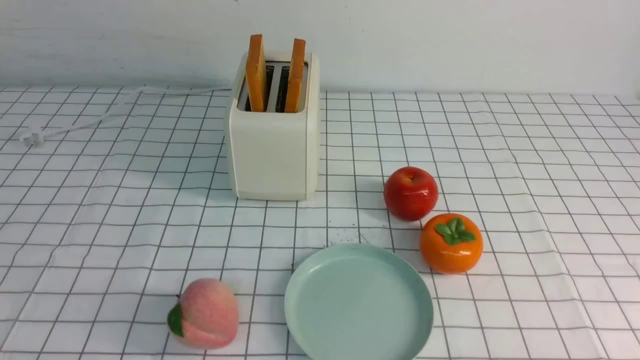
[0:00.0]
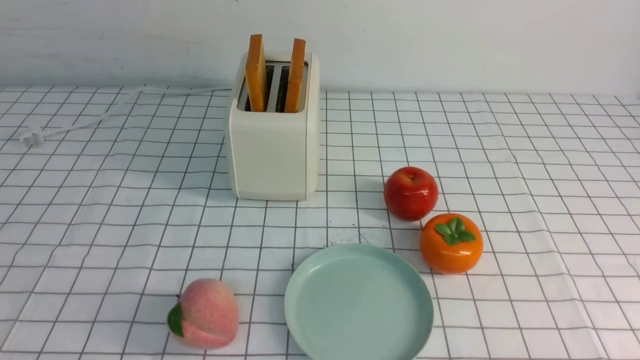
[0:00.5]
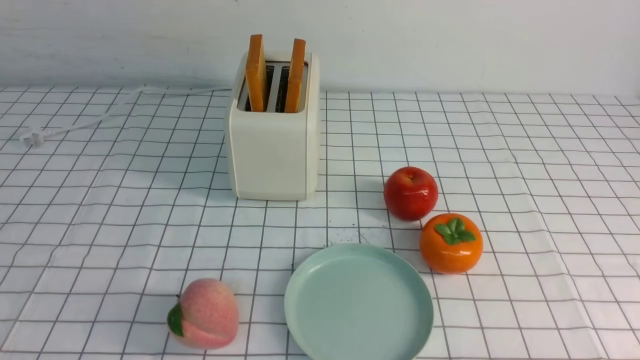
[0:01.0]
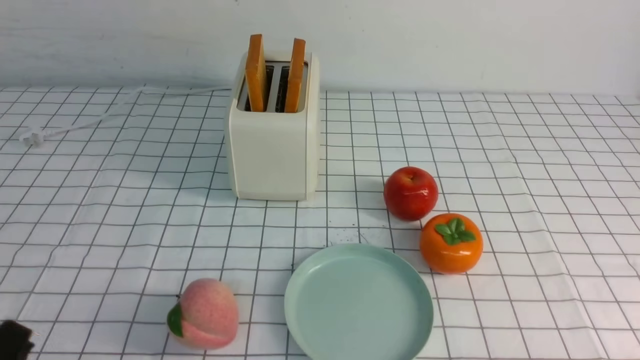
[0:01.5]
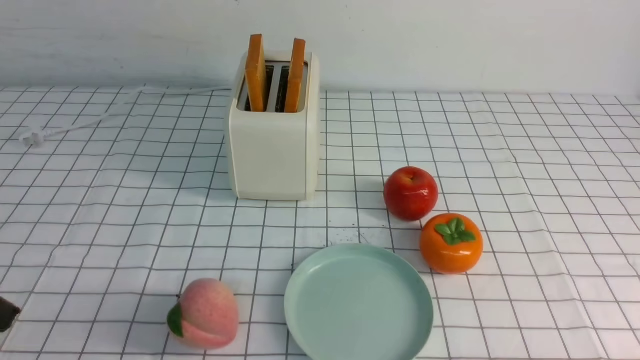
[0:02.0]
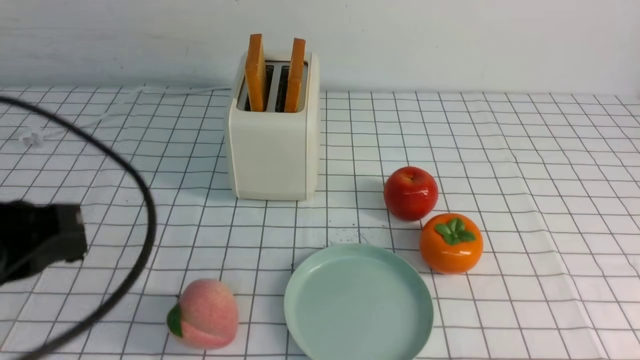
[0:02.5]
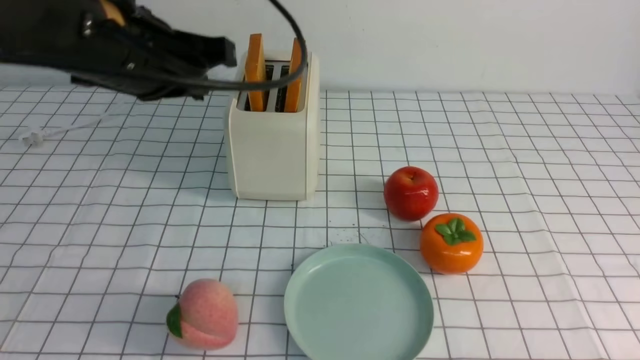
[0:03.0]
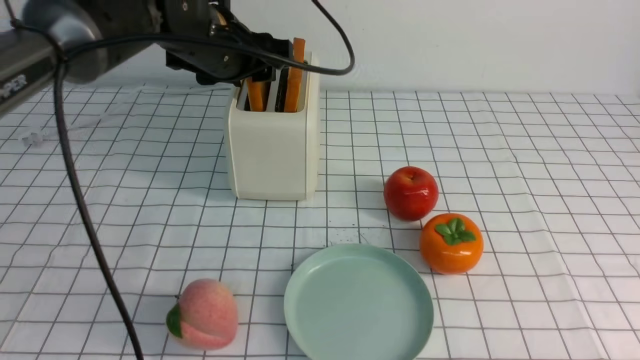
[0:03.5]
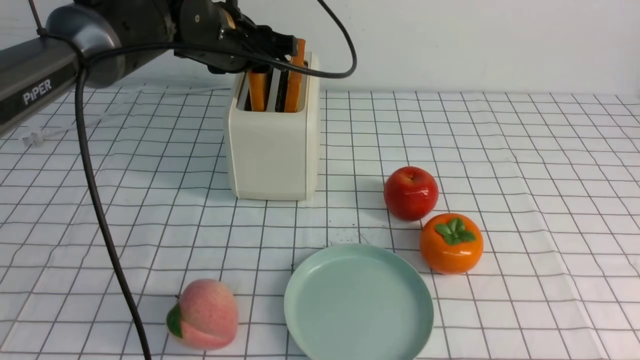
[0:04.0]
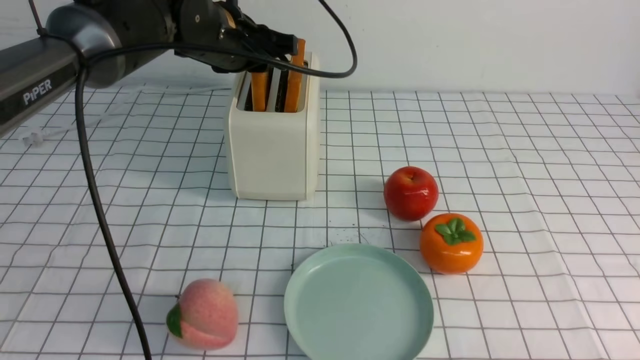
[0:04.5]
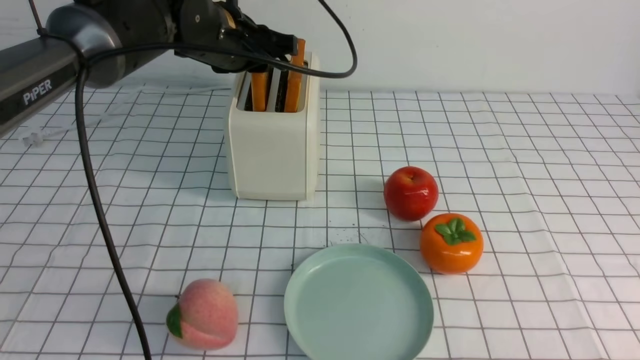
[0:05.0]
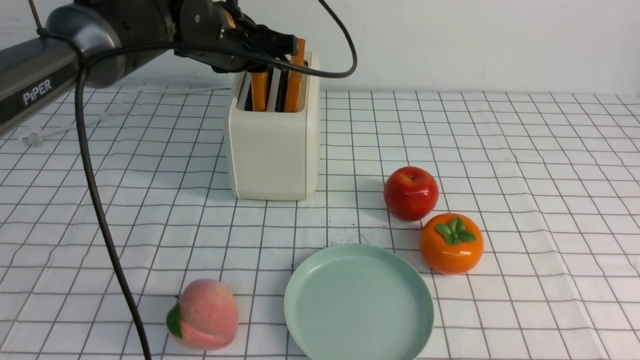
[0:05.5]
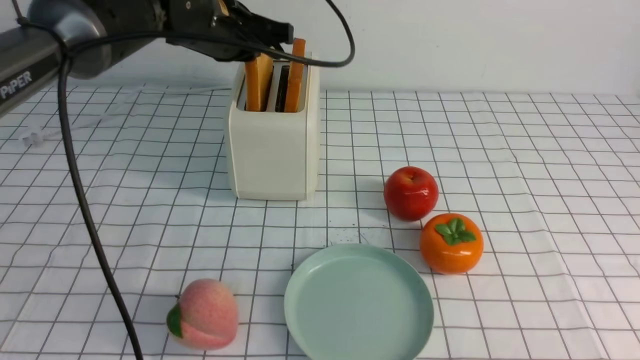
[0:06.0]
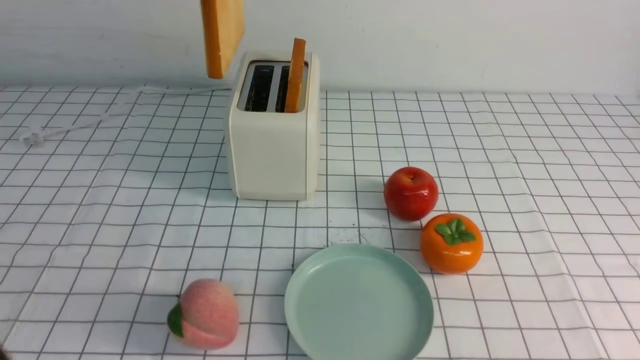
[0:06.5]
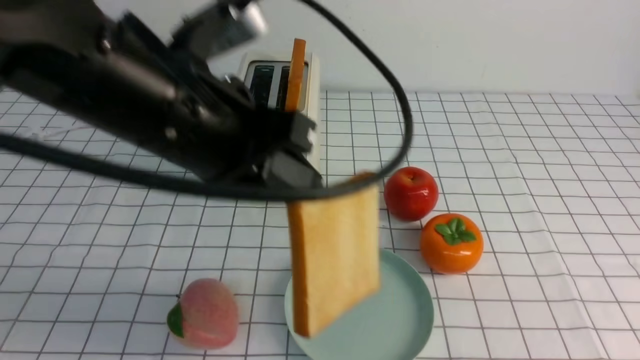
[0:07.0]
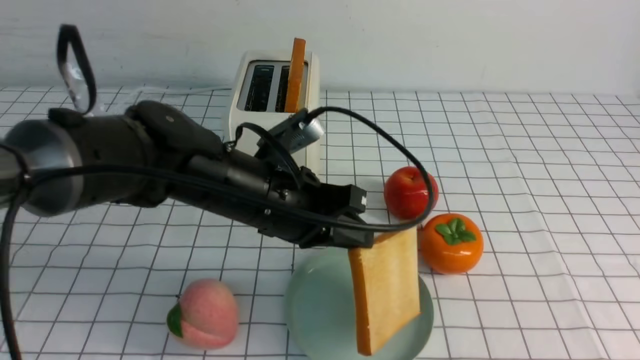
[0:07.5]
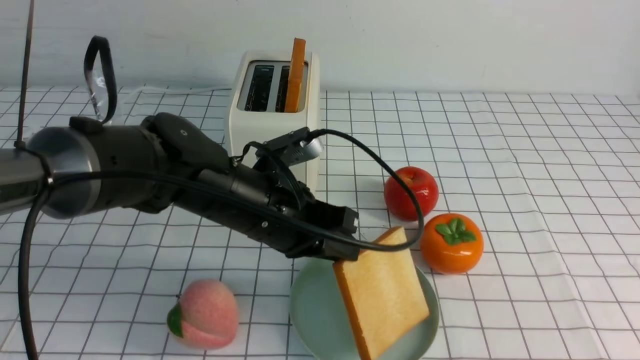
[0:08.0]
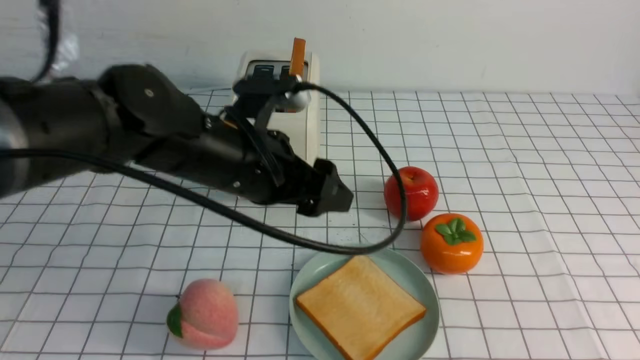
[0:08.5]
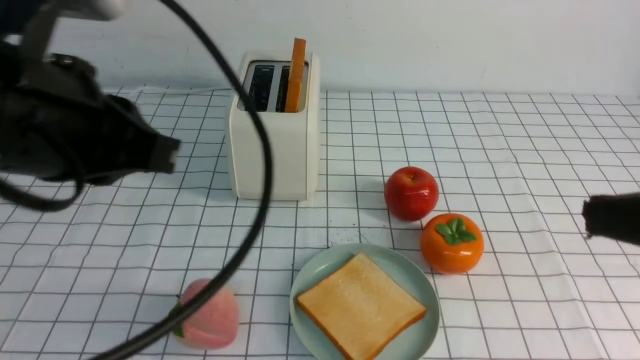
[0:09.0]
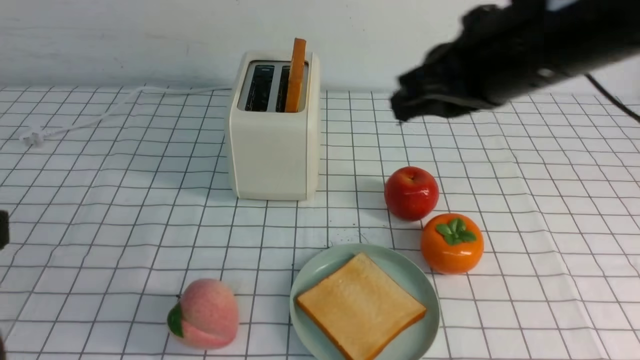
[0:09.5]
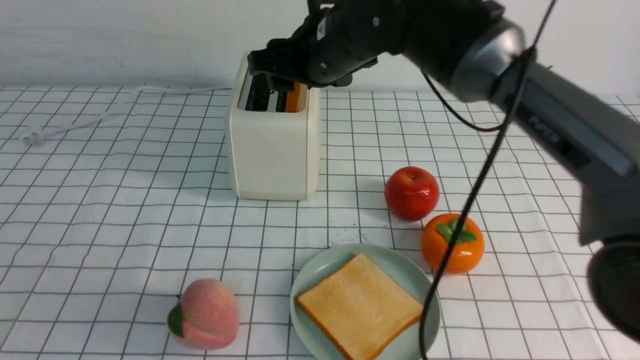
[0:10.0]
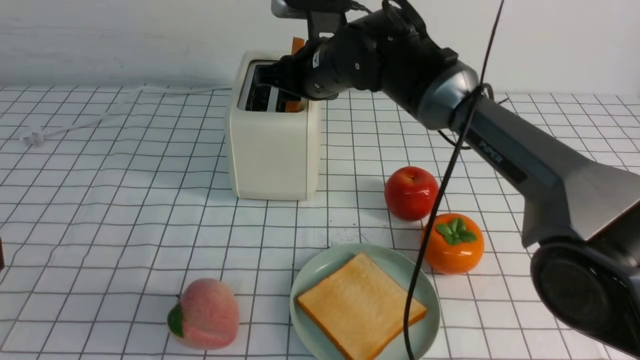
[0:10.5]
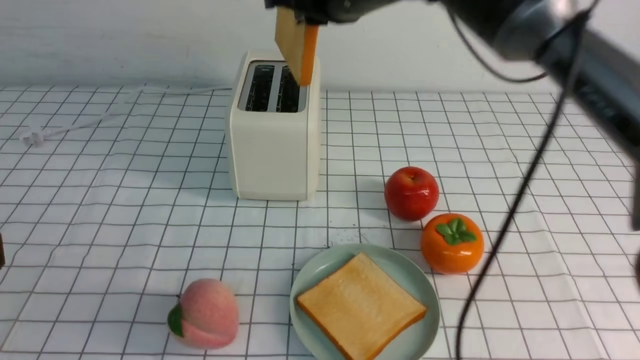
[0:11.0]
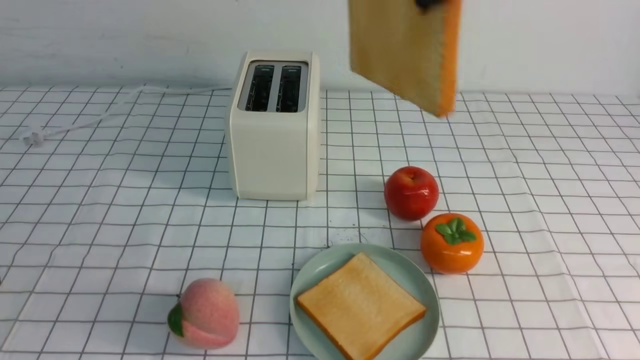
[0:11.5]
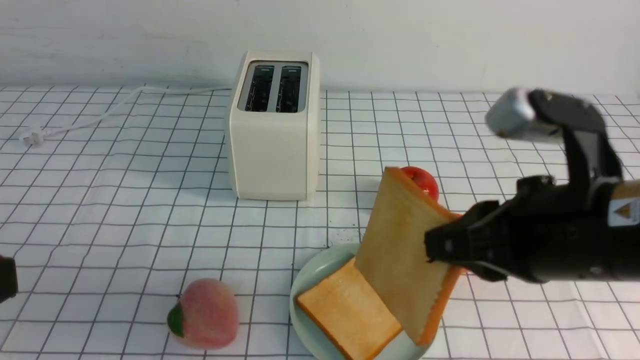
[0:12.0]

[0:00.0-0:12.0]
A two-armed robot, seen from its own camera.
Task of the whole recording: take toasted bread from bread machine on white checkered table place on plate.
Step, 0:00.0 to 0:06.0: use the left arm to take out a slice of bread.
Step, 0:06.5 to 0:08.5: use the left arm to put a slice of bread into the empty plate.
Step, 0:09.0 to 0:10.5: use the right arm to take out a slice of bread.
0:02.0 to 0:04.0: The left gripper shifts some 40 cm forward, and opens its fingers.
0:04.0 to 0:06.0: The left gripper closes up. Meanwhile the right gripper heads upward, covering roughly 10 cm, and closes its fingers.
0:06.0 to 0:08.0: The right gripper moves upward, some 5 cm. Meanwhile the left gripper travels backward and downward by approximately 20 cm.
0:08.0 to 0:10.0: The left gripper goes about 35 cm backward, to the left and upward, and opens, then closes again. Meanwhile the right gripper is displaced forward and to the left by roughly 40 cm, and opens.
0:10.0 to 0:12.0: The right gripper goes about 25 cm backward and to the right, and closes its fingers.

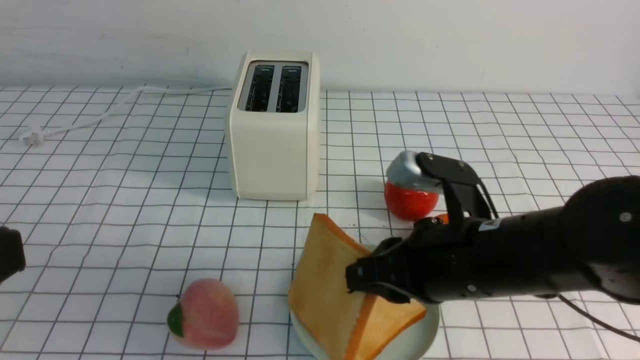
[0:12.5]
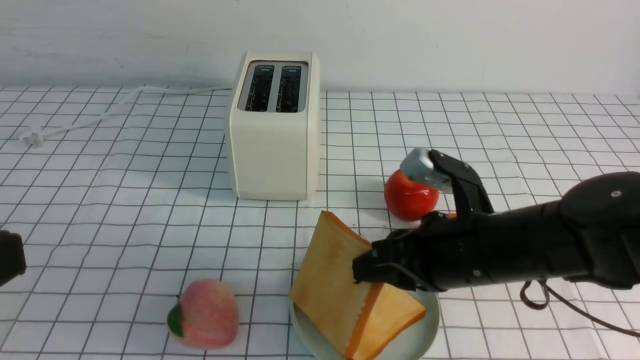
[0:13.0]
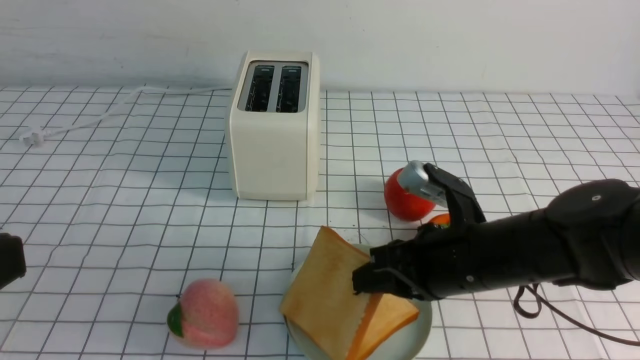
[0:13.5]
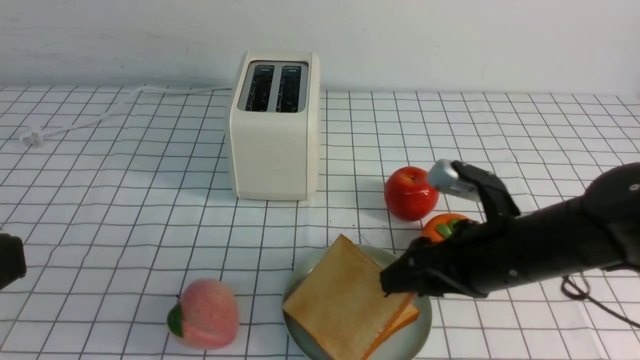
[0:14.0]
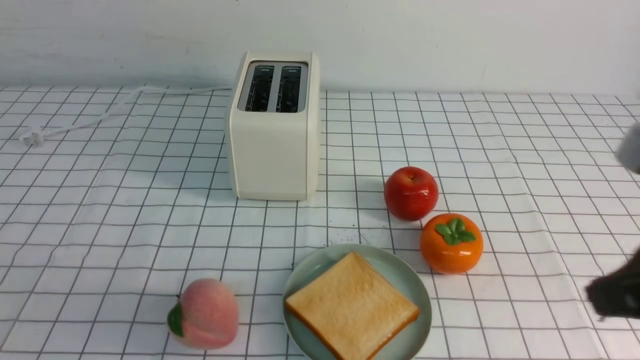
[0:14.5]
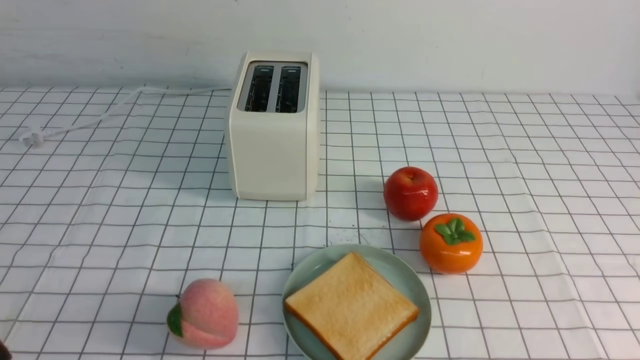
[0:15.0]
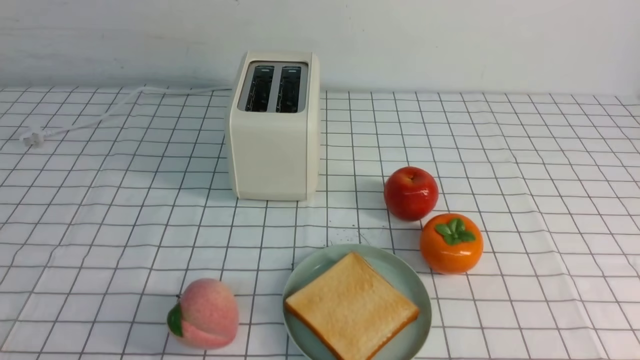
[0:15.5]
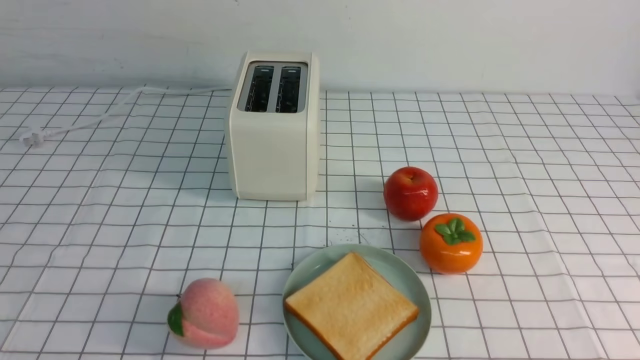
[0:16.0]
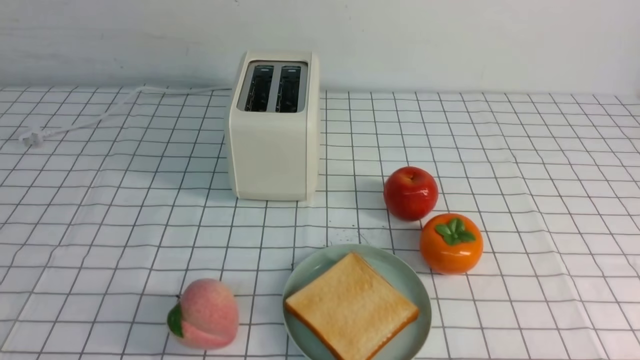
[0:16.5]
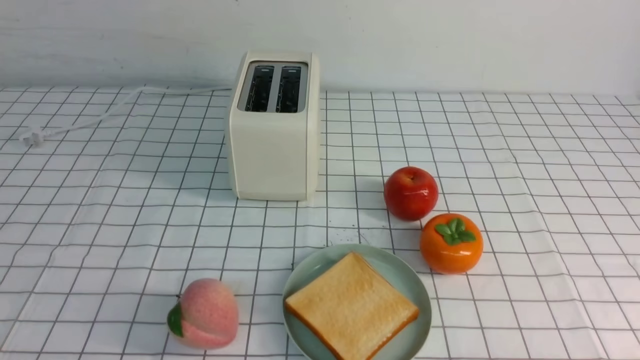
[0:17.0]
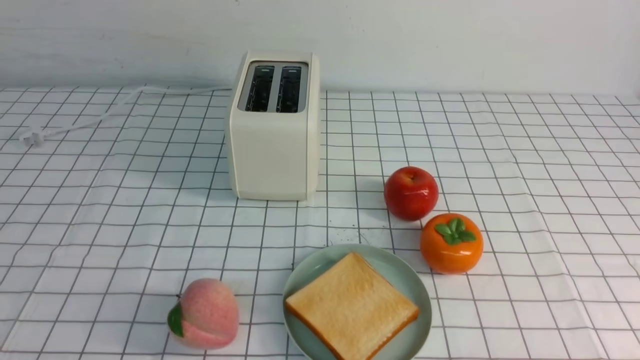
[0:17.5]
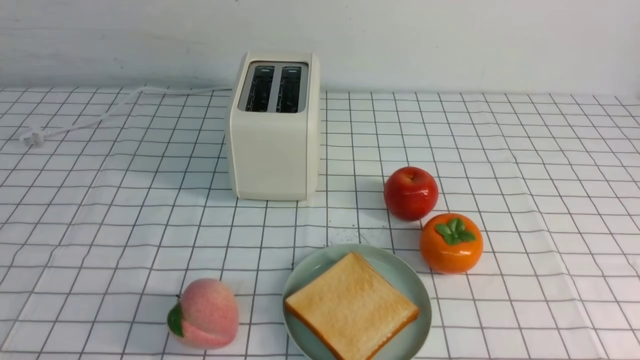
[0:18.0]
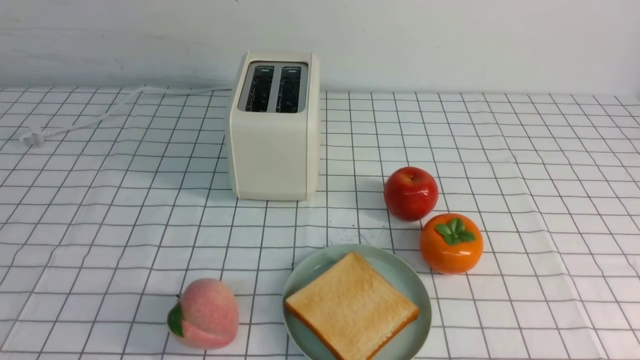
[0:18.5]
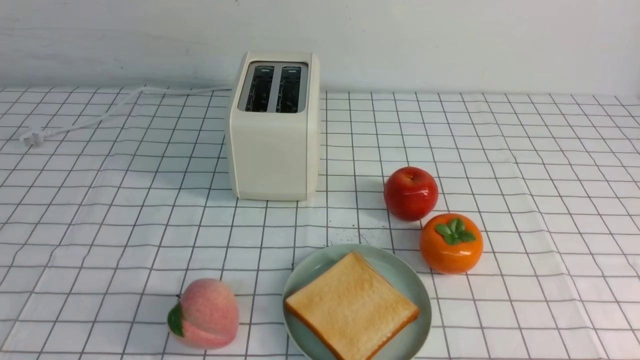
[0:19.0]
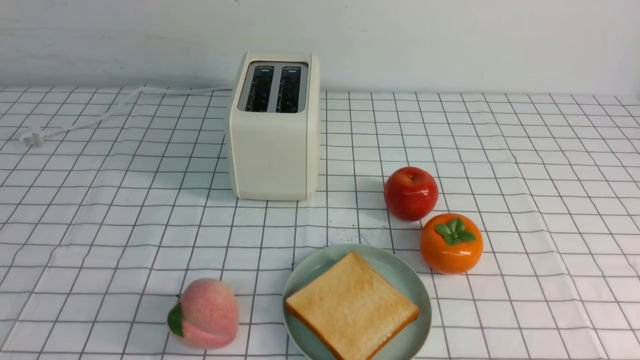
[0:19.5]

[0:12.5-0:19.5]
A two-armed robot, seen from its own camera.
Task of the whole recording: take toasted bread from bread machine on white checkered table place on plate.
0:12.5 to 0:14.5: The right gripper moves to the right and upward, some 15 cm, and opens and closes again.
0:14.5 to 0:16.0: The right gripper moves backward, downward and to the right, roughly 15 cm, and closes its fingers.

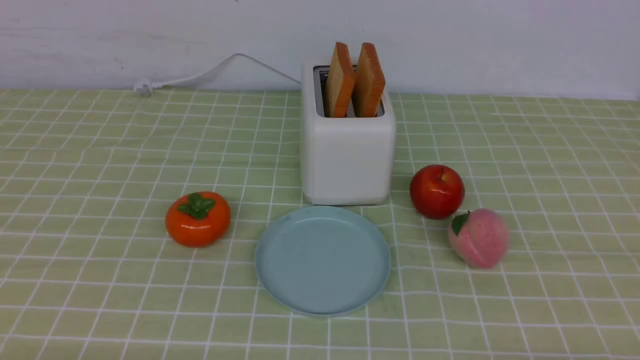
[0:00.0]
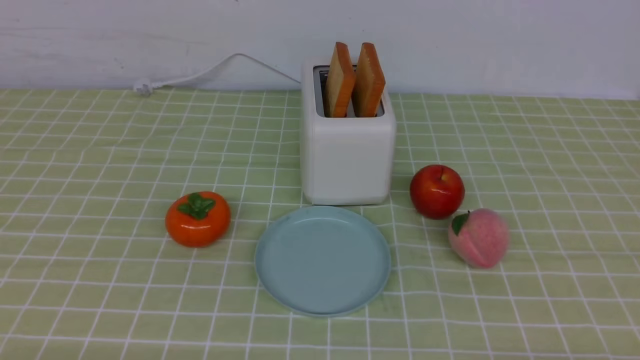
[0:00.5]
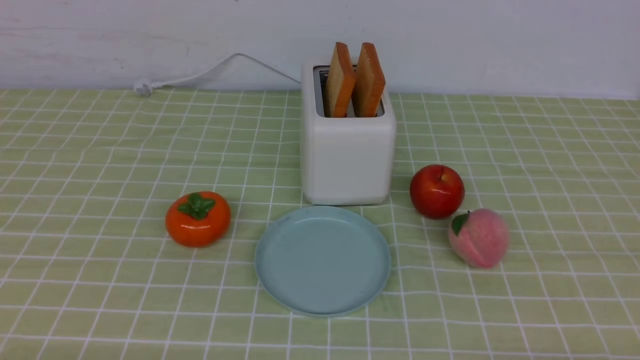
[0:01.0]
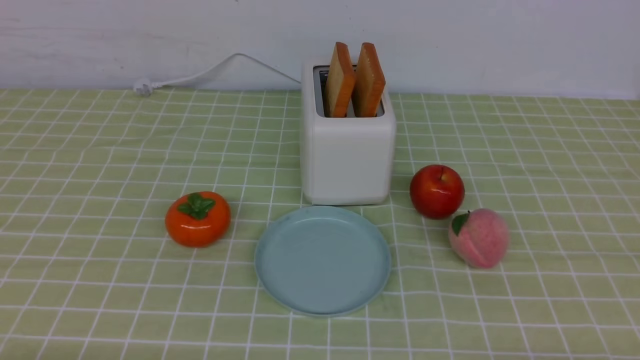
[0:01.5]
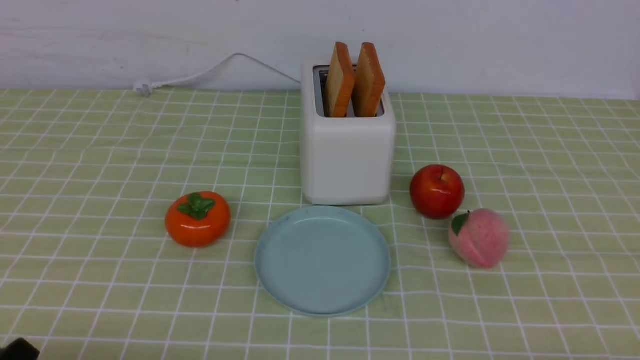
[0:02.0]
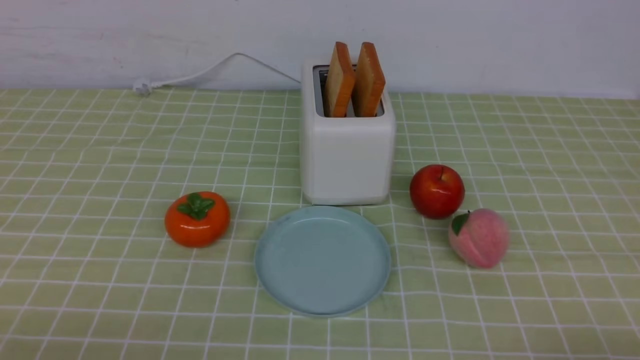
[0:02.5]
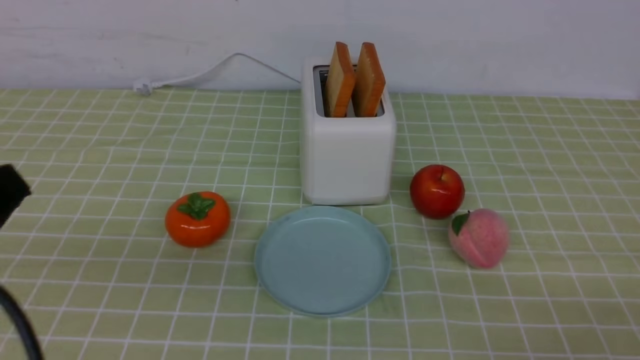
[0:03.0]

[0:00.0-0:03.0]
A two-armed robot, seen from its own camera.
Task of the whole recording: take toasted bread from bread machine on green coffee tablecloth place on plate.
0:00.0 to 0:01.5: Both grippers stay put.
0:01.5 to 0:03.0: Both grippers move upward, approximately 15 cm. The left gripper closes. The right gripper closes its fingers.
